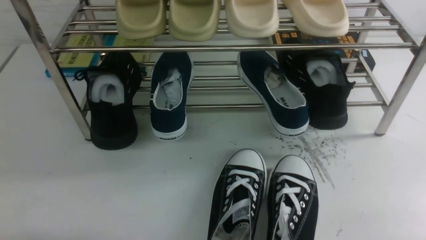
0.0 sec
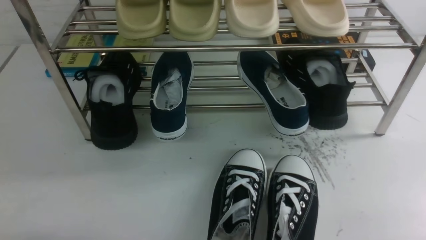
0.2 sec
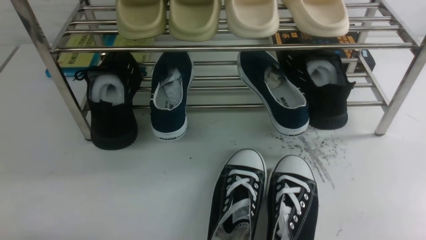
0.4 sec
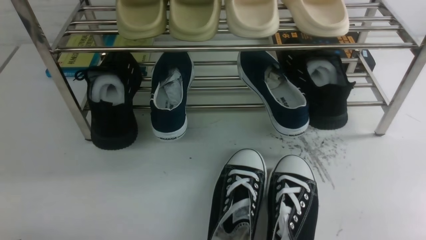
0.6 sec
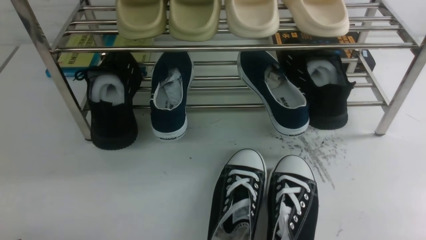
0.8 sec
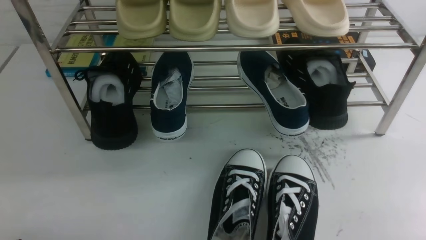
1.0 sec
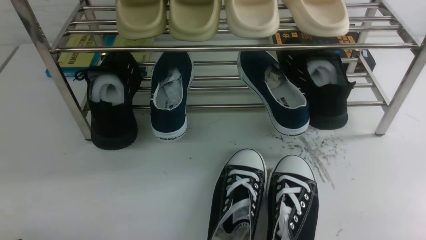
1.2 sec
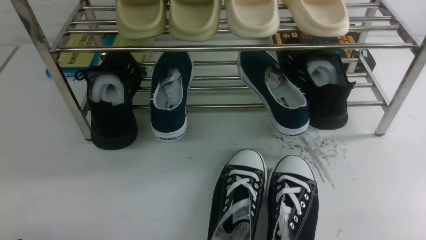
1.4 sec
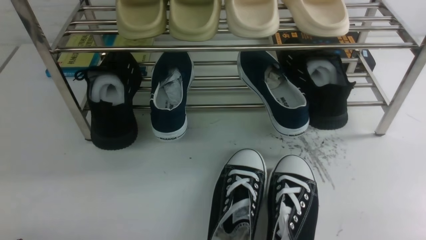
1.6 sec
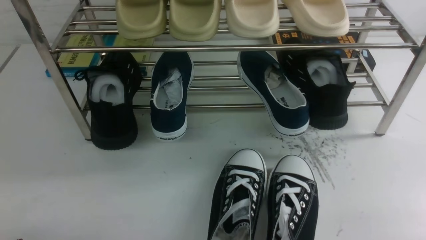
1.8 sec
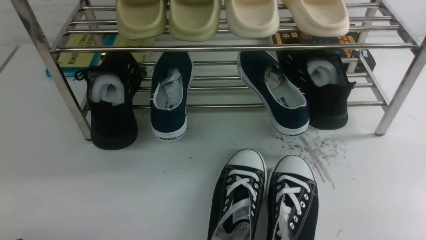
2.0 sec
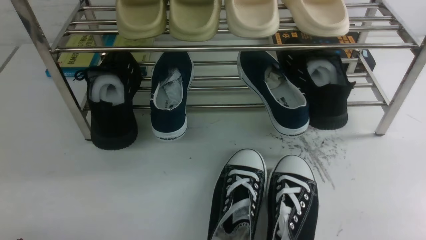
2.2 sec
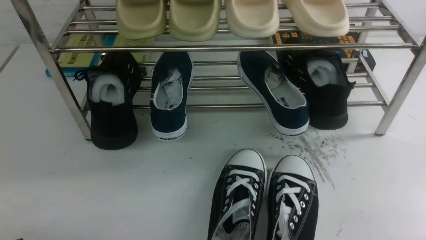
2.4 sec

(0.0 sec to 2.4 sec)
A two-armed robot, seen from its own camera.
1.2 sec - 2.4 sec: Both grippers stay about where they are.
